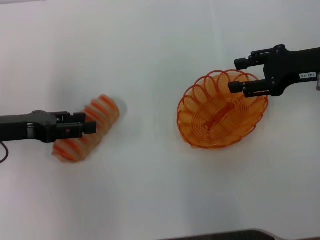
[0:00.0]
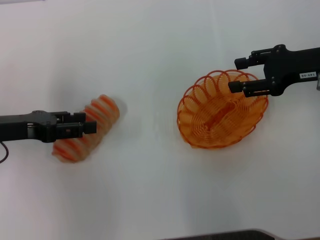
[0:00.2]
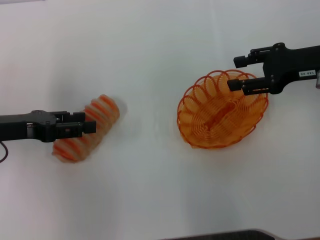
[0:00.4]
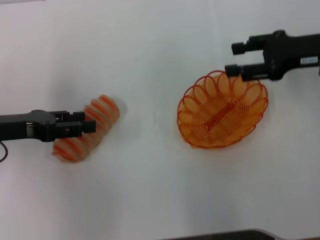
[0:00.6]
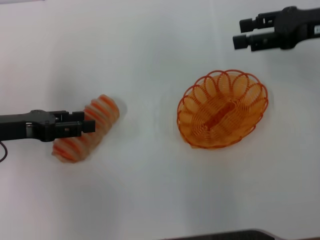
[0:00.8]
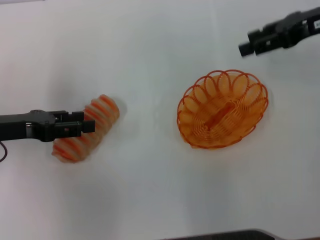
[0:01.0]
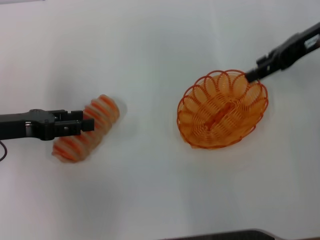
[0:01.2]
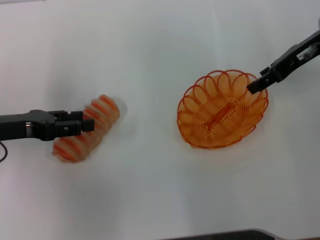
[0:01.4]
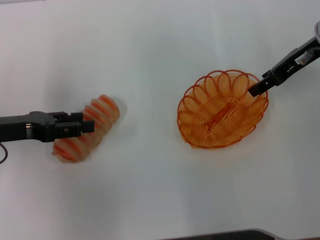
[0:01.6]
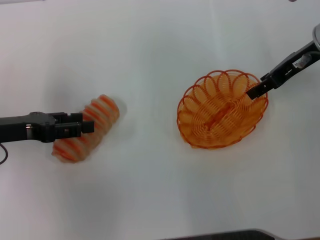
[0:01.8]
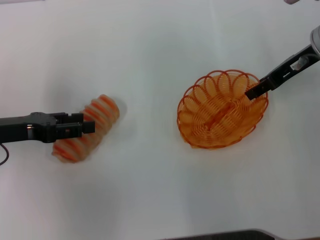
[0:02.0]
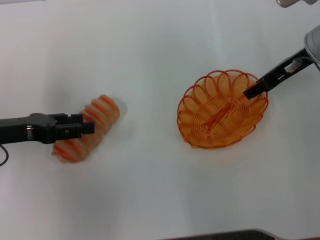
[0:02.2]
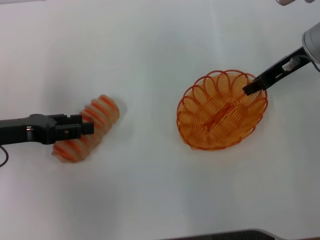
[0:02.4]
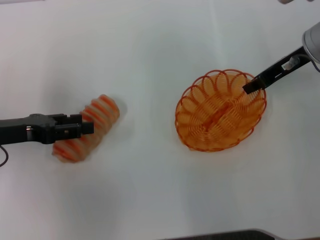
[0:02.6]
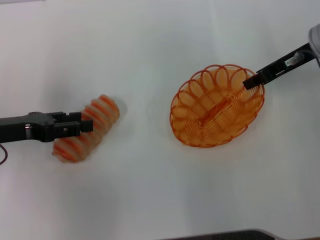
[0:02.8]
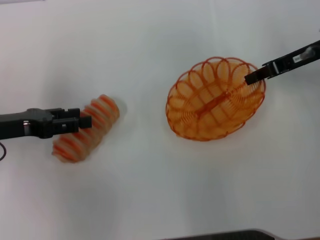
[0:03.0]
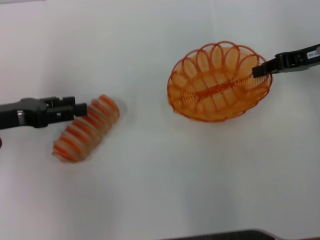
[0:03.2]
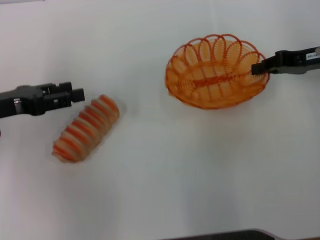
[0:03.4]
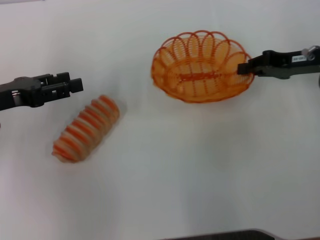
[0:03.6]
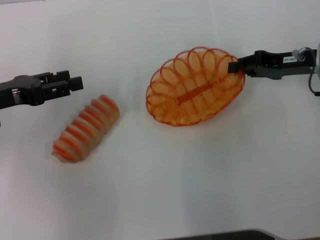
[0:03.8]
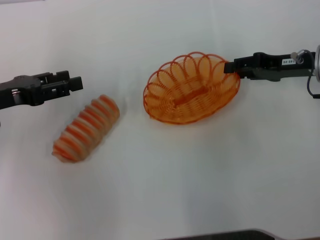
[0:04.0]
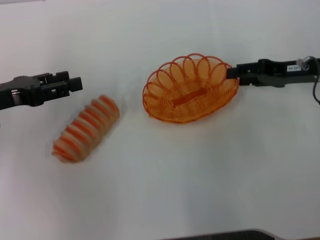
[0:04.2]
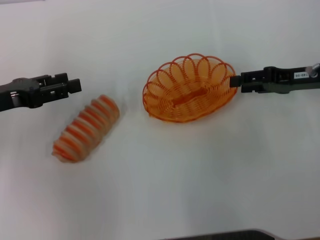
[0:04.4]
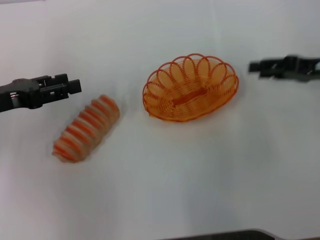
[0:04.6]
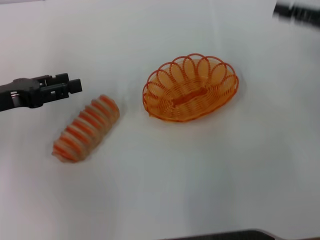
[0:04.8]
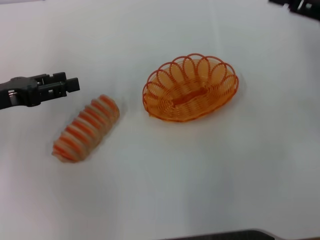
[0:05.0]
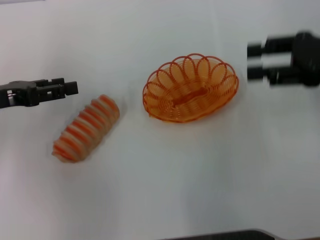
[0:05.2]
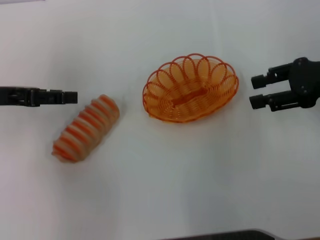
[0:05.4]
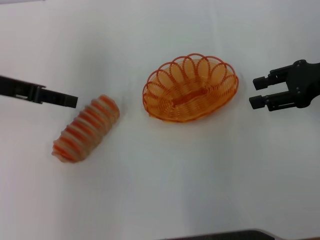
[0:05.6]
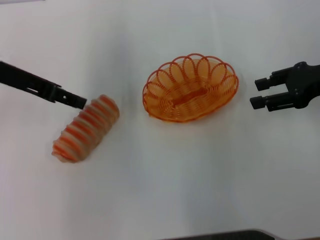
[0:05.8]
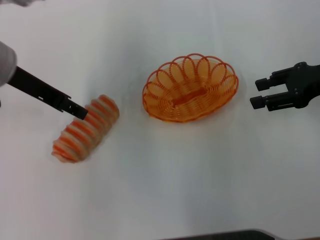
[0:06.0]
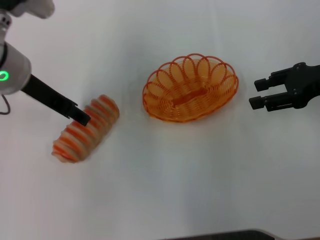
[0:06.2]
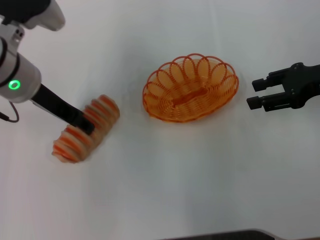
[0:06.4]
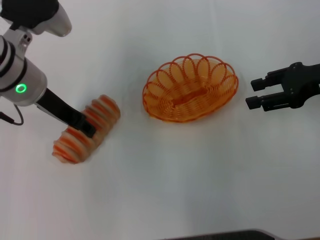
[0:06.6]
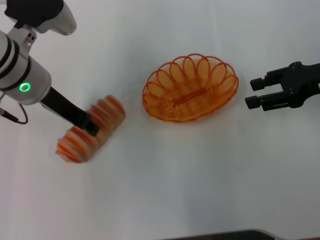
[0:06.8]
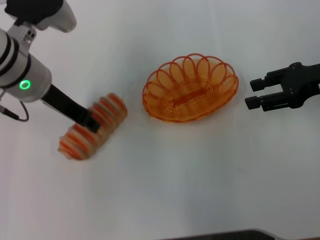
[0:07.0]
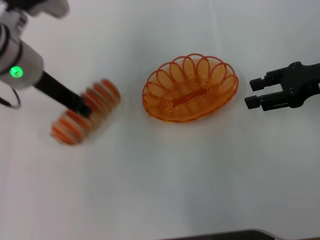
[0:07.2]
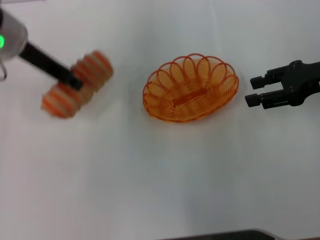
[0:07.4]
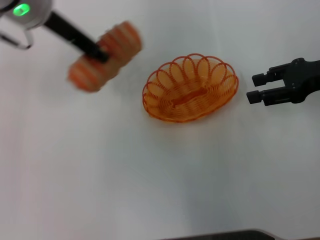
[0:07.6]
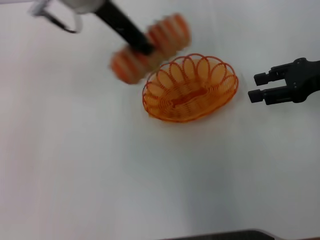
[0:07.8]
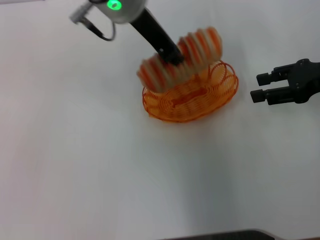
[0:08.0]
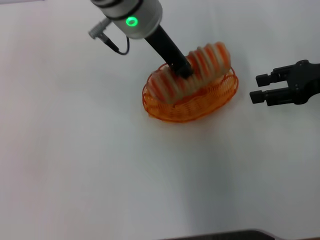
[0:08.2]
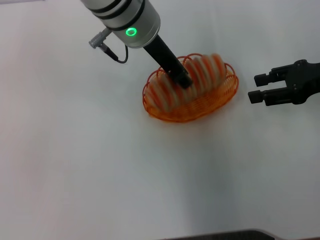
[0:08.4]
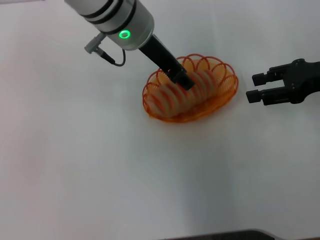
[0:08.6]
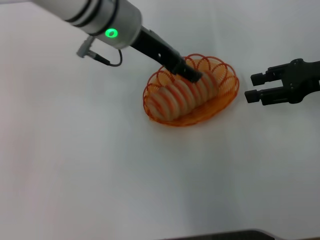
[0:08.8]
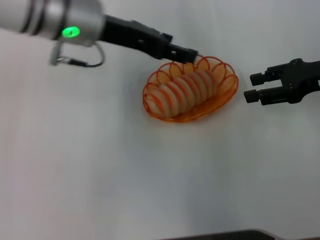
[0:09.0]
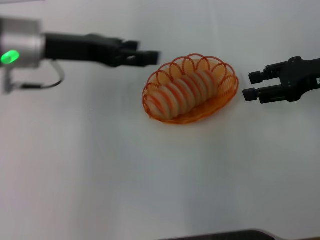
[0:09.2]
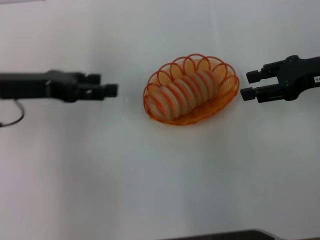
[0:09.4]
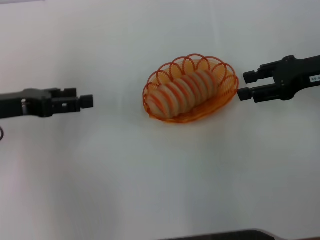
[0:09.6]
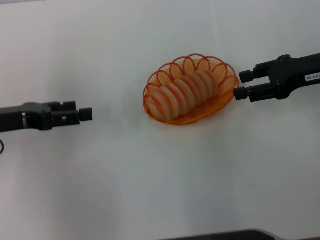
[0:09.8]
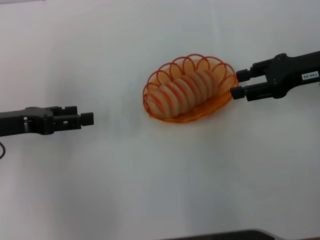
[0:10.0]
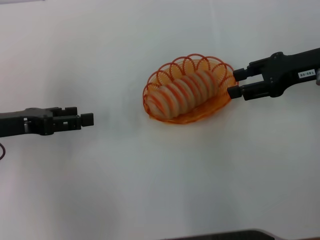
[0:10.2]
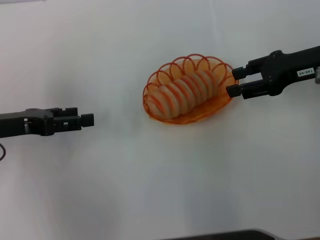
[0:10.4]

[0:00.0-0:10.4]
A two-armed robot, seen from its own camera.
Step, 0:00.0 to 0:03.0: Pick up the basket with the right gripper.
Step, 0:03.2 to 0:04.6: Place the basket in the center of view with the right gripper.
Step, 0:04.8 to 0:07.2: Pick up the long bread with the left gripper.
Step, 0:07.4 to 0:09.0: Place the long bread into the basket with the left gripper.
0:00.0 to 0:01.4: The right gripper goes about 5 cm forward.
0:01.4 to 0:03.0: The right gripper closes its fingers.
0:03.0 to 0:04.4: The right gripper ends up about 5 cm from where it was, and opens.
0:04.4 to 0:06.0: The left gripper heads to the right and upward, covering some 15 cm.
0:06.0 to 0:07.4: The left gripper closes up.
0:07.4 to 0:09.0: The left gripper goes some 5 cm to the right, and opens up.
0:09.0 to 0:10.4: The left gripper travels to the left, downward and backward by about 20 cm.

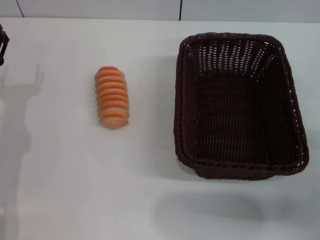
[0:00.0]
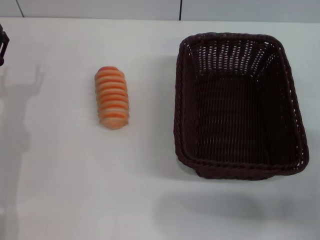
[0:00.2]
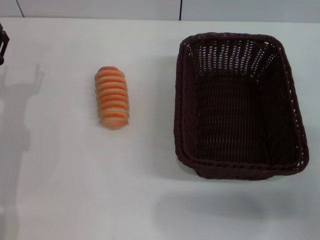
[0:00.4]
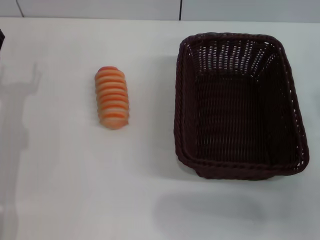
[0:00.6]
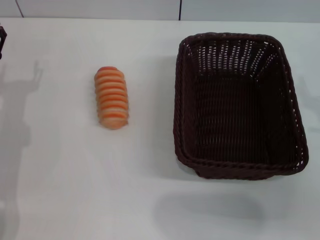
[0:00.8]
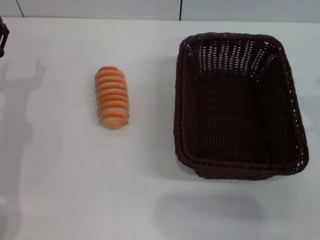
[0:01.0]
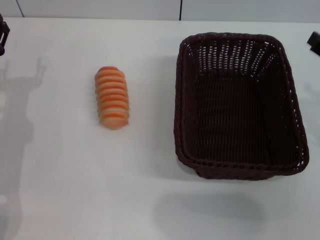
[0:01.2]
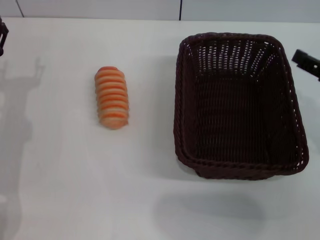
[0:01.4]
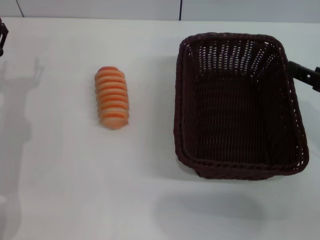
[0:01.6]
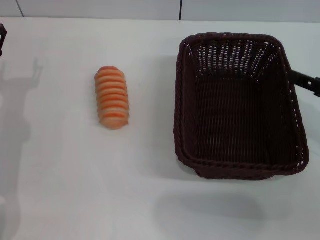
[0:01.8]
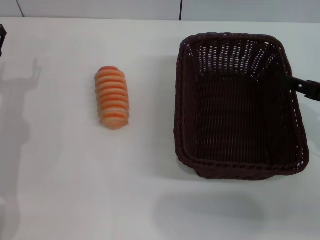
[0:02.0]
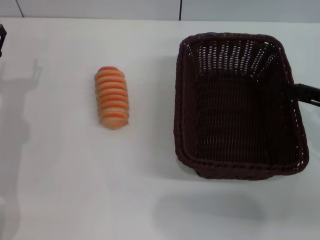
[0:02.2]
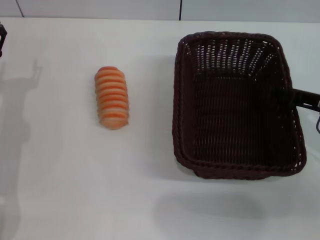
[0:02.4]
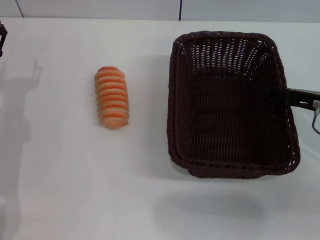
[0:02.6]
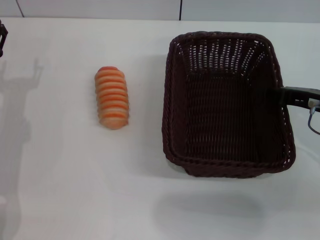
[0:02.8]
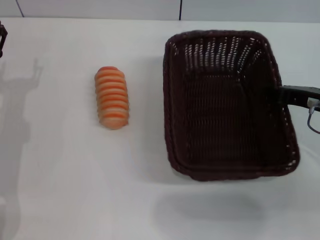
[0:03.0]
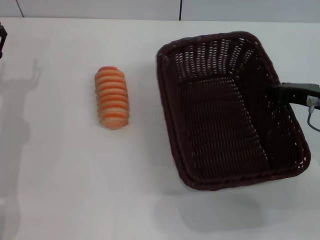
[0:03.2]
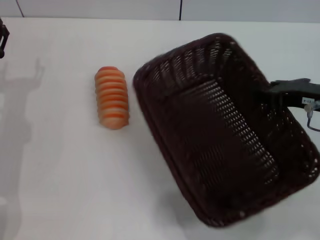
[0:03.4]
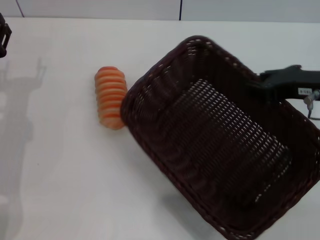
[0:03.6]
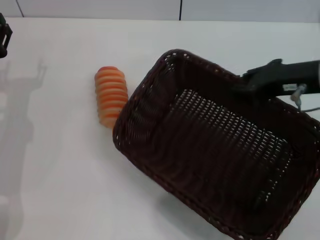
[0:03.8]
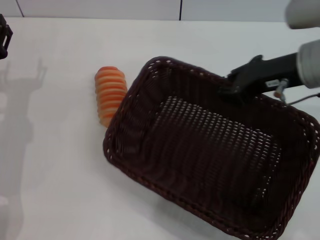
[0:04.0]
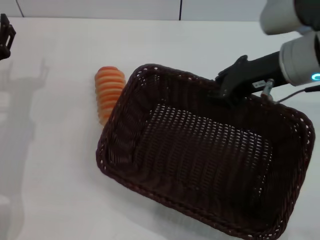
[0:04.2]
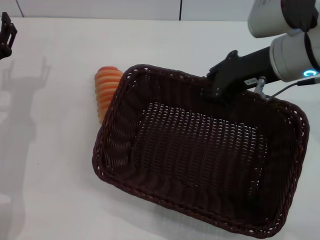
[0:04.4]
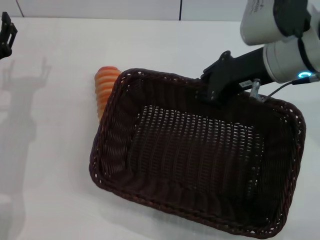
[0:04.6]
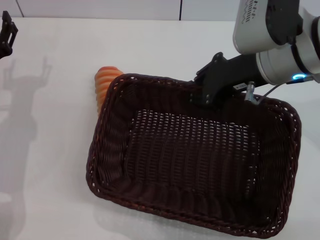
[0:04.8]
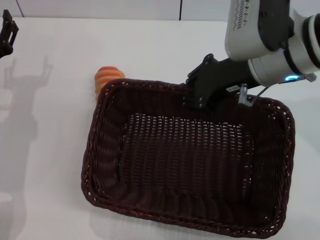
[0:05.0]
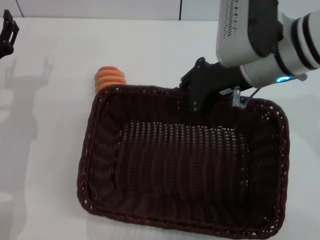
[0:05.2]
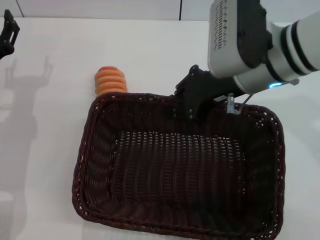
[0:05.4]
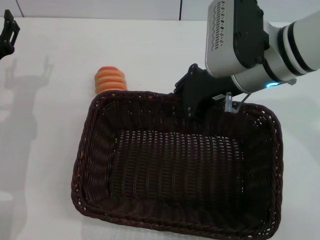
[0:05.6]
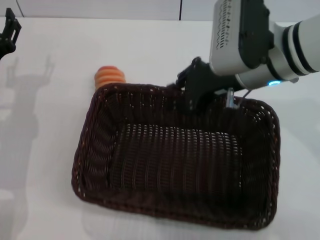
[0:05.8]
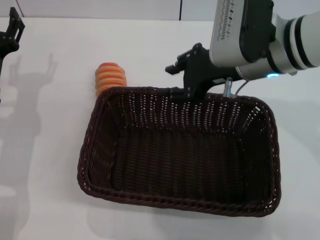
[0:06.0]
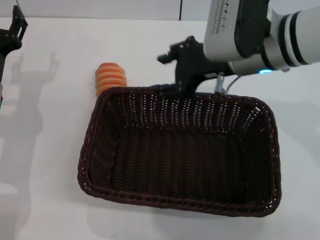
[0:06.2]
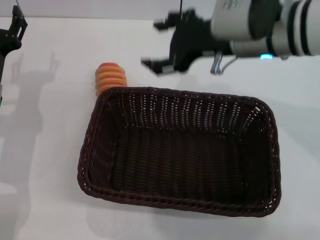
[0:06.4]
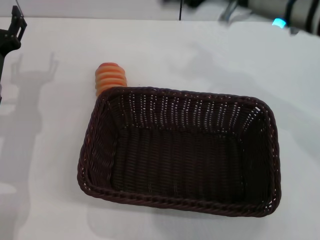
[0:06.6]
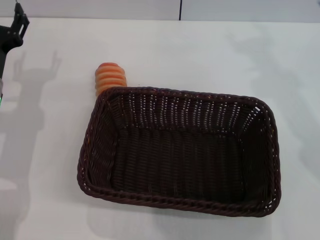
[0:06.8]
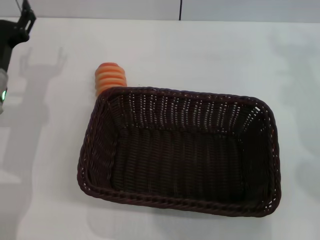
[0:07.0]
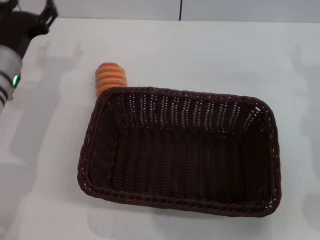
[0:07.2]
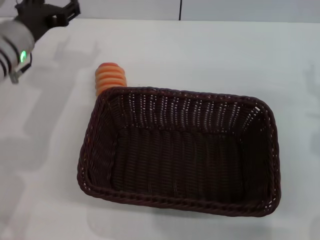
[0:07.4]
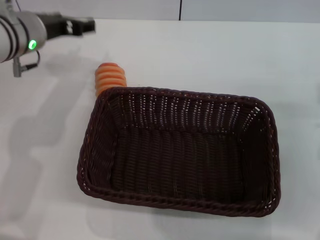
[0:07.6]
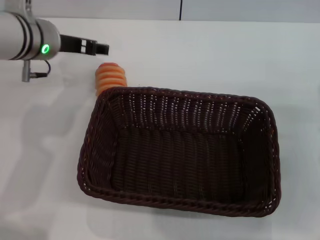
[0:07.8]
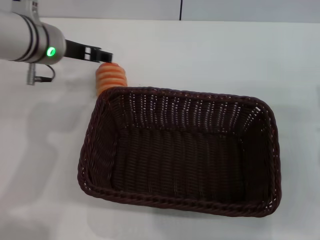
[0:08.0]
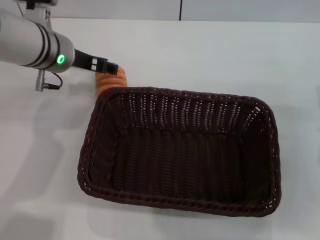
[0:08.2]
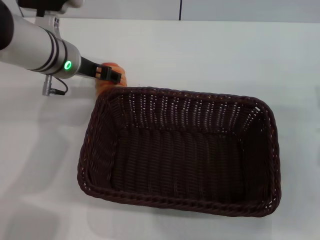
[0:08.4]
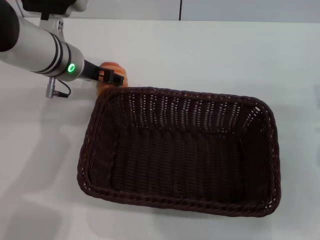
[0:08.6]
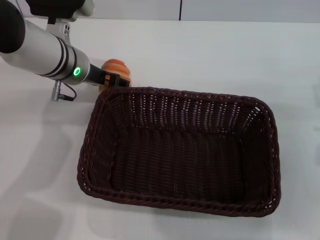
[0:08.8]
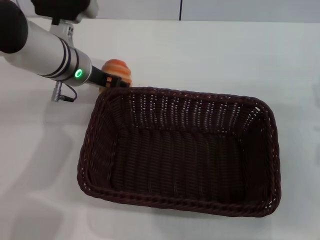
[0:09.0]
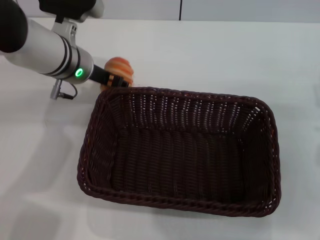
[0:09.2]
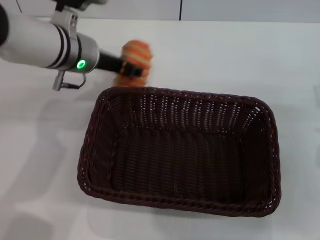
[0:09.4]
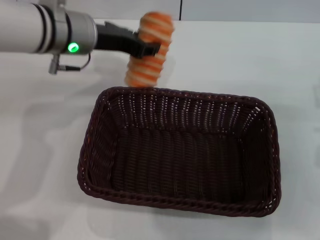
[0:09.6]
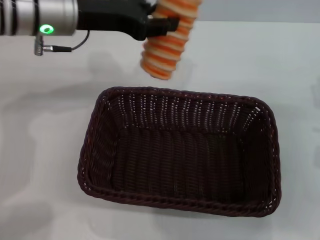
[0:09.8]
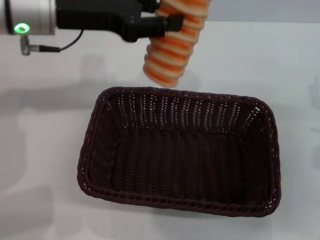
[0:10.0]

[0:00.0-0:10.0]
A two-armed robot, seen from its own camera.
Step, 0:00.0 to 0:04.6: Pick up the dark basket with the right gripper.
Step, 0:05.0 to 0:07.0: Place the dark basket in the center of view with the right gripper.
Step, 0:07.2 to 0:09.8: Pick up the long bread with the left gripper.
0:00.0 to 0:01.4: The right gripper is displaced upward by about 10 cm.
0:01.4 to 0:02.8: The right gripper goes about 5 cm forward.
0:02.8 to 0:04.2: The right gripper moves to the left and upward, approximately 10 cm, and closes.
0:04.2 to 0:05.8: The right gripper goes approximately 5 cm to the left.
0:05.8 to 0:07.2: The right gripper goes some 15 cm to the right, backward and downward, and opens. The left gripper travels forward by approximately 5 cm.
0:07.2 to 0:08.6: The left gripper travels to the right by approximately 10 cm; the right gripper moves roughly 5 cm.
0:08.6 to 0:10.0: The left gripper shifts some 10 cm upward, and closes up.

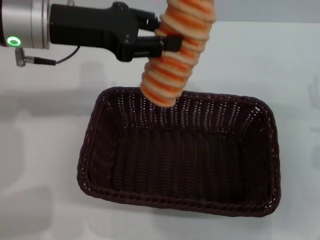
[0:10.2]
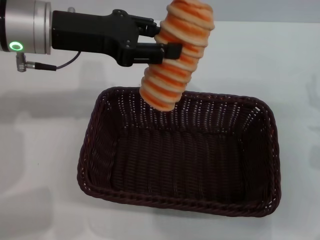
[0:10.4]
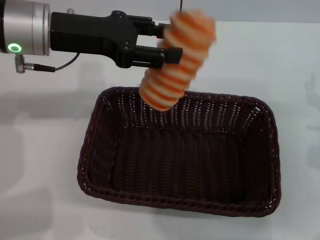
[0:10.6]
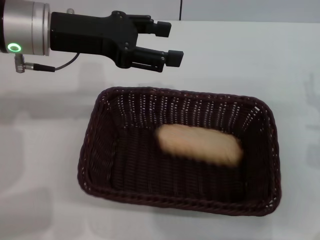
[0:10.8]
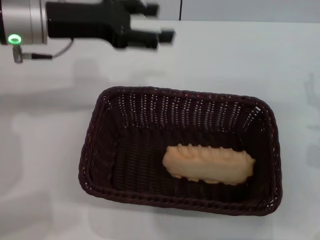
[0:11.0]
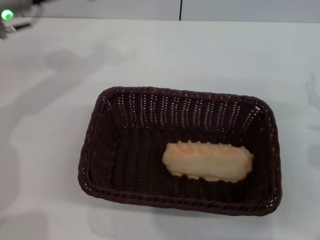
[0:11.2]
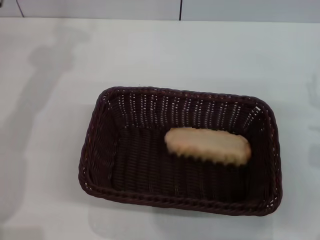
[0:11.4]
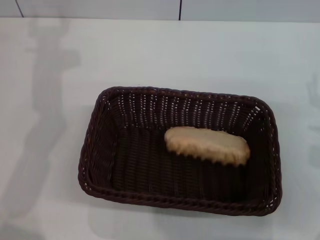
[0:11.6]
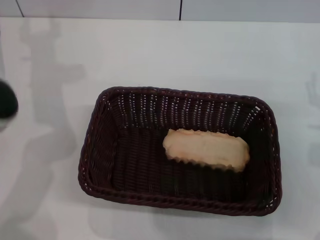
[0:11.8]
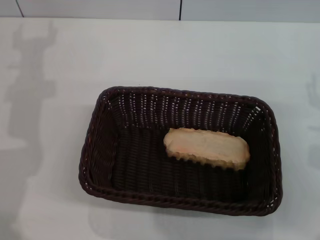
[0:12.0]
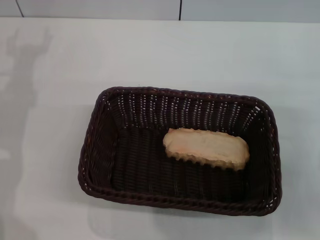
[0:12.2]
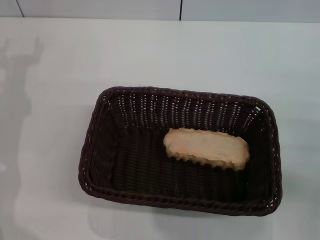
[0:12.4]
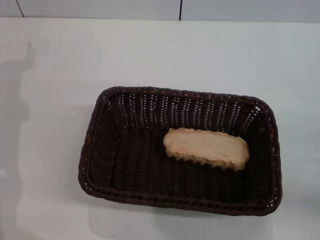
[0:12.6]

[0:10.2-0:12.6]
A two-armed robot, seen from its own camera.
Step, 0:10.2 to 0:11.2: Place the long bread into the dark basket with the left gripper.
0:10.2 to 0:11.4: The left gripper goes some 10 cm to the left and forward, and opens up.
0:11.4 to 0:12.6: The left gripper heads downward and backward, covering roughly 15 cm; the right gripper travels to the right and backward by about 10 cm.
